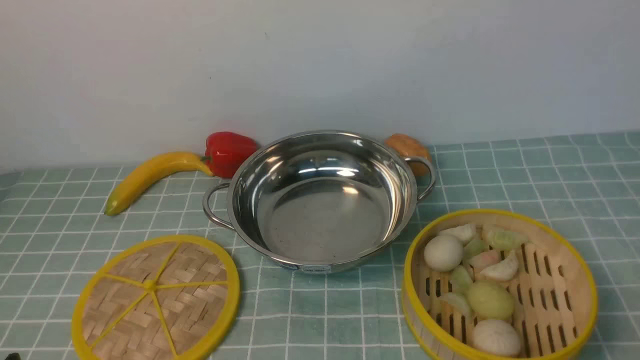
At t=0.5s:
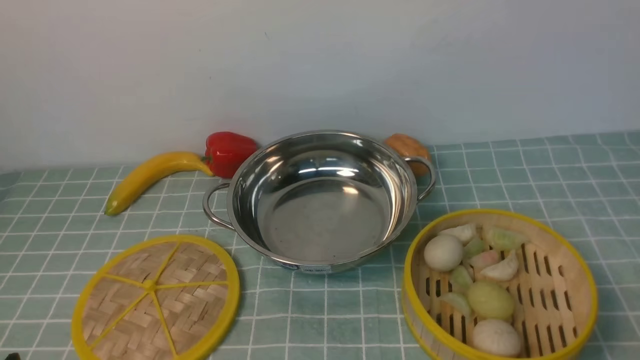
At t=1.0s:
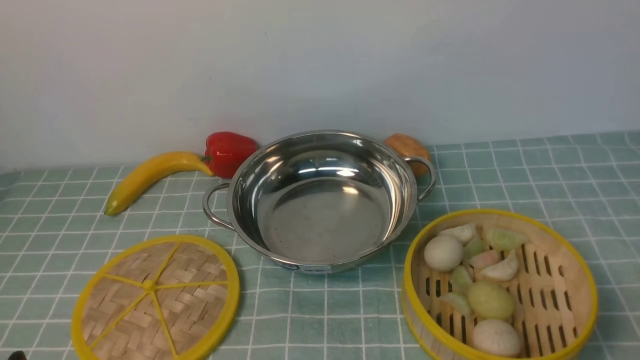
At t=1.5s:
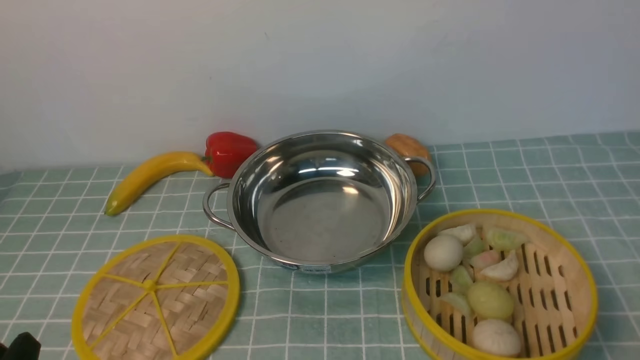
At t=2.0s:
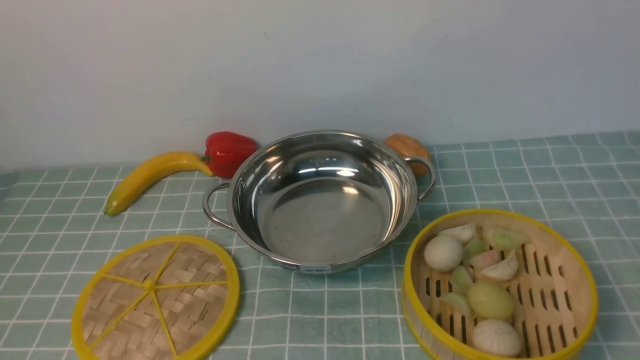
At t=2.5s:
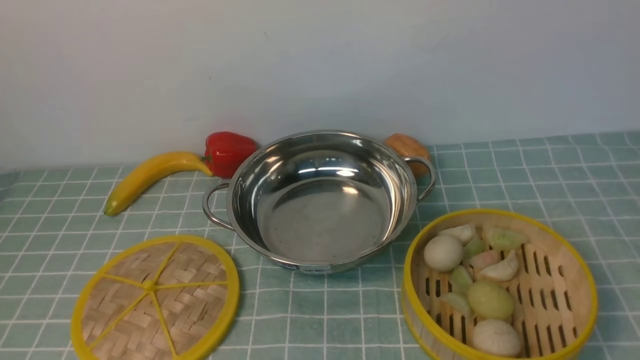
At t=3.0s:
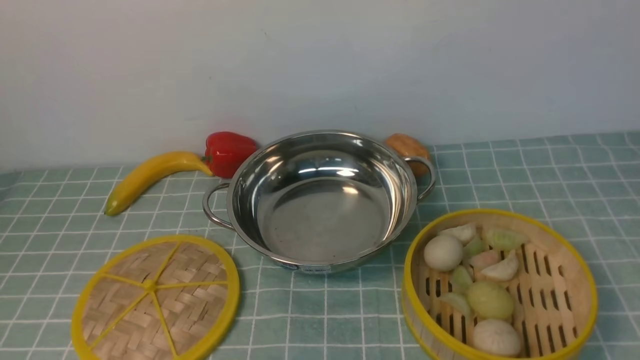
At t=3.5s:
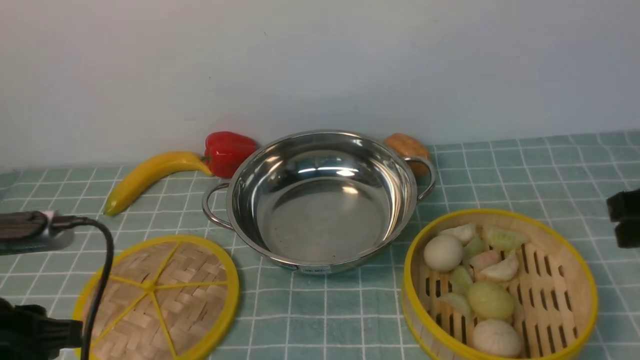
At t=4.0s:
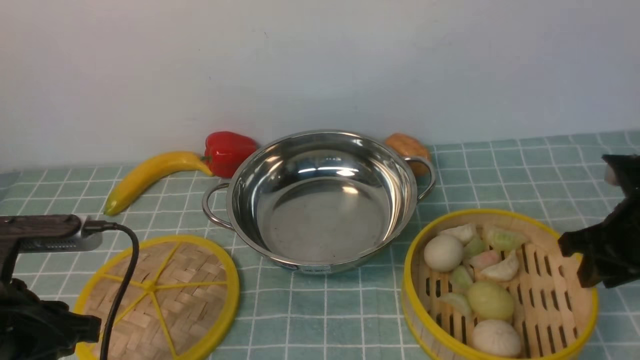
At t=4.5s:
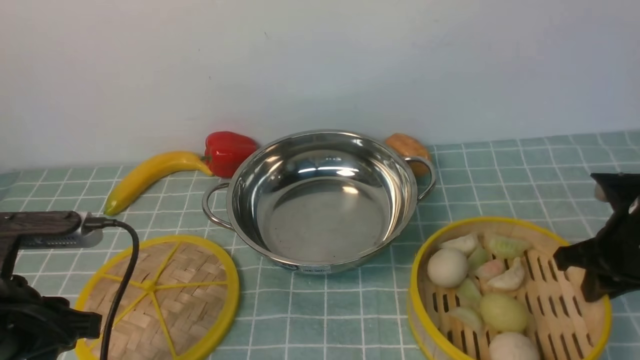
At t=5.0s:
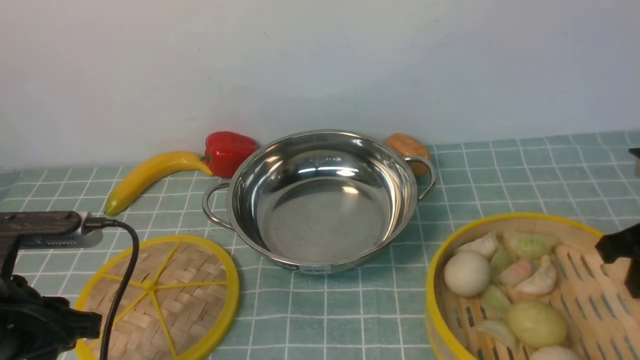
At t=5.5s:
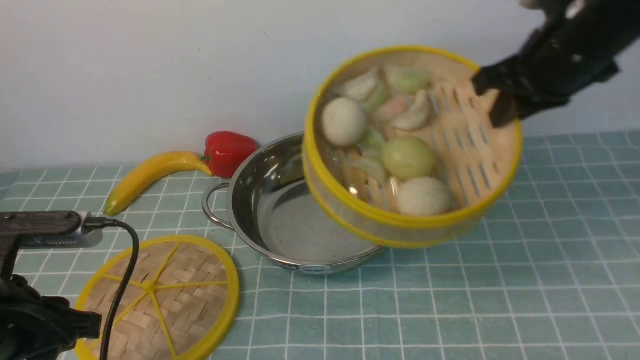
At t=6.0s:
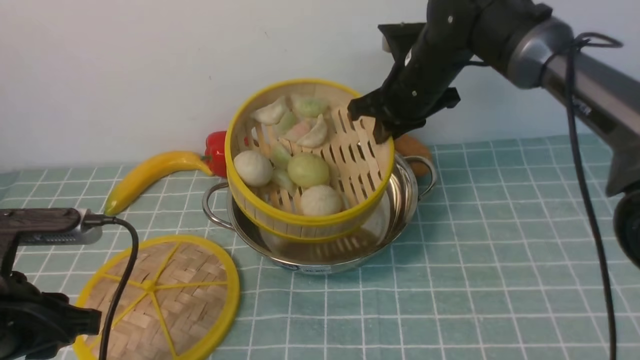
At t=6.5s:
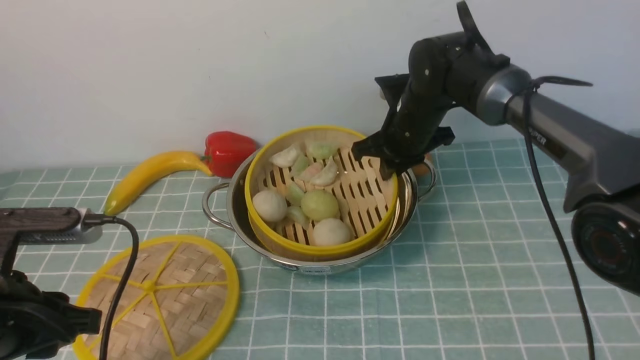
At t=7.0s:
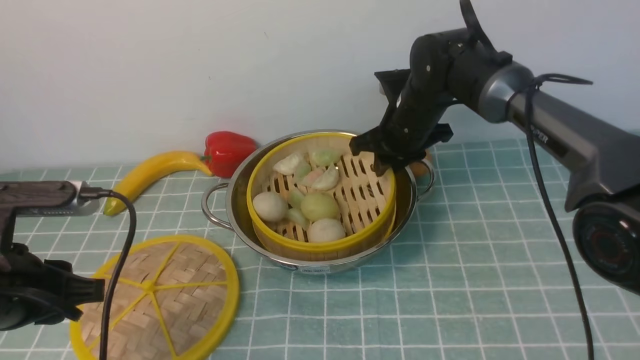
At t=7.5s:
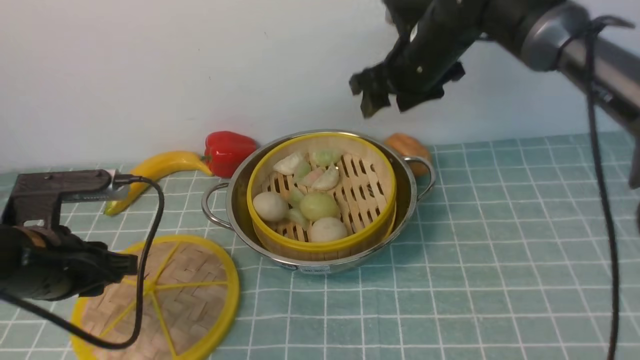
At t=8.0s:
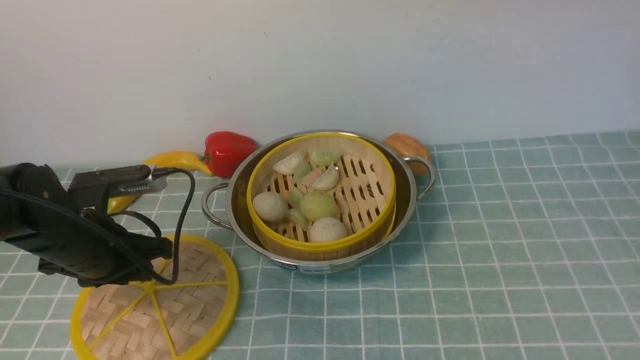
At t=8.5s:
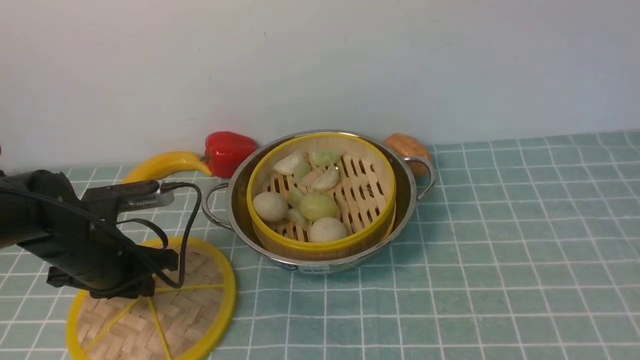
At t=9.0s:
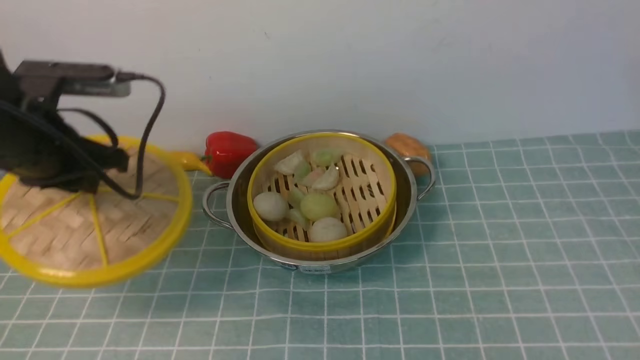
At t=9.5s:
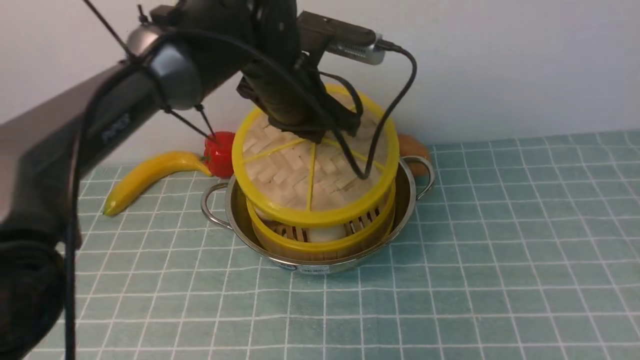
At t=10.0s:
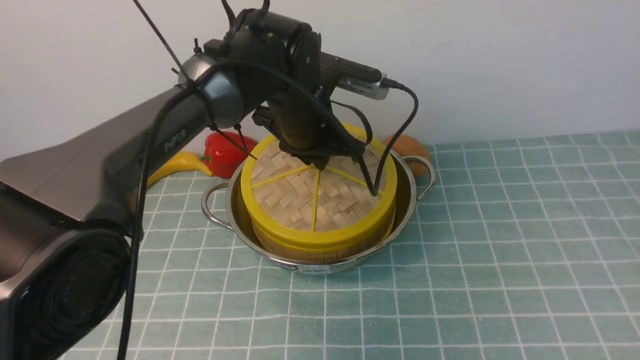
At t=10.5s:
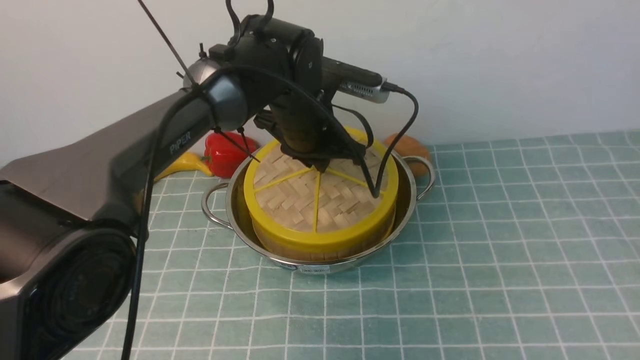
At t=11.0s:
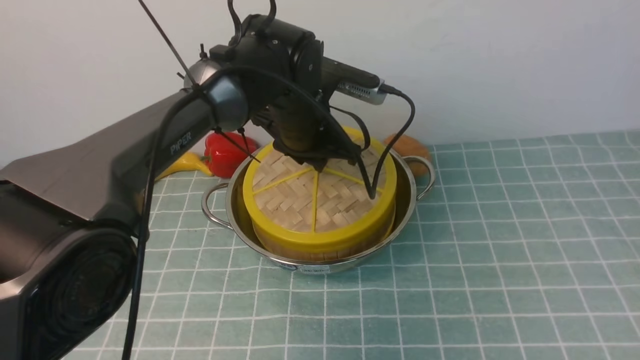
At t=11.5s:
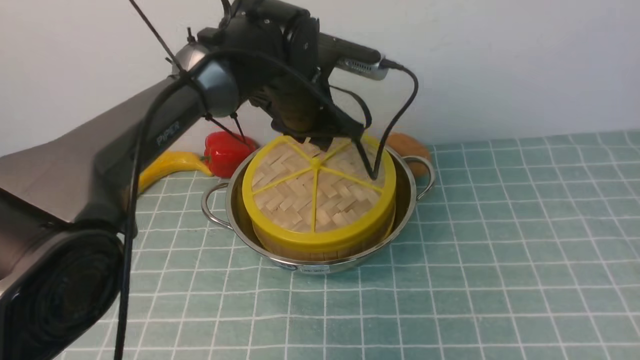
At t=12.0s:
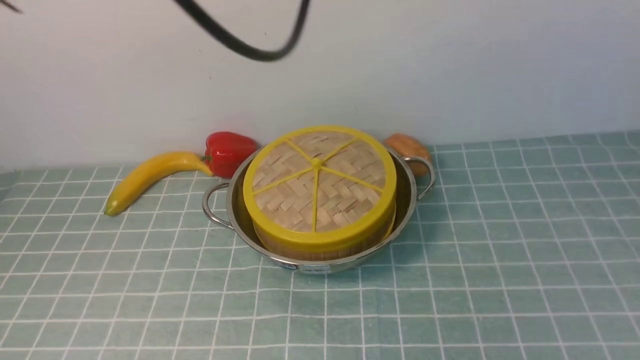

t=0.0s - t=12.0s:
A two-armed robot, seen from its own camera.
Task of the whole recording: place the steamer in the pot on the blue tablecloth, and put the lid on the steamer.
Step, t=0.0s - t=4.5s: use the right arm to lift the steamer closest to it.
Step, t=5.0s - t=7.5s: use the right arm to put the steamer into the iron steamer pot in the middle.
Step, t=8.0s - t=9.0s: use the left arm to lift the lid of the steamer.
Step, t=9.5s - t=11.5s: use the left arm to place the steamer lid on the steamer.
t=2.0s - t=4.0s: The right gripper shifts some 25 cm forward. Meanwhile the left gripper travels forward by some 10 cm.
t=4.0s - t=6.0s: The right gripper goes some 25 cm to the left and forward.
t=6.0s - t=8.0s: The left gripper heads forward and downward, covering approximately 15 cm, while the right gripper is displaced upward and backward by roughly 35 cm, and opens its fingers.
t=8.0s - t=10.0s: The right gripper shifts roughly 25 cm backward and to the right. The left gripper is displaced to the right and forward by approximately 25 cm, and closes its fingers.
t=10.0s - t=12.0s: The right gripper moves roughly 5 cm. Meanwhile the left gripper moves upward and backward, some 30 cm, and opens and closes again.

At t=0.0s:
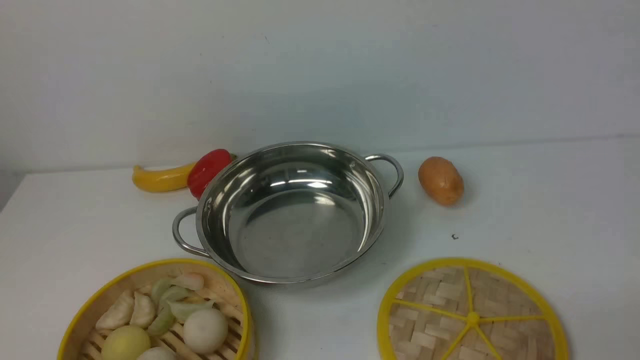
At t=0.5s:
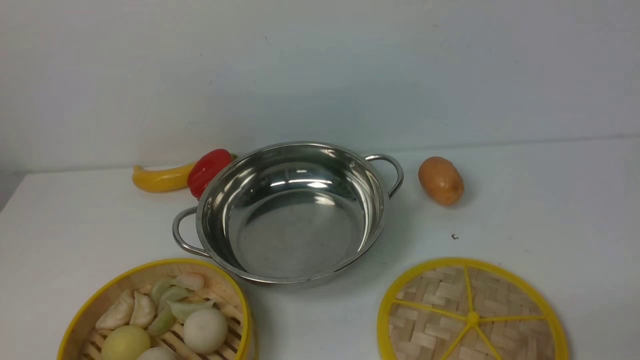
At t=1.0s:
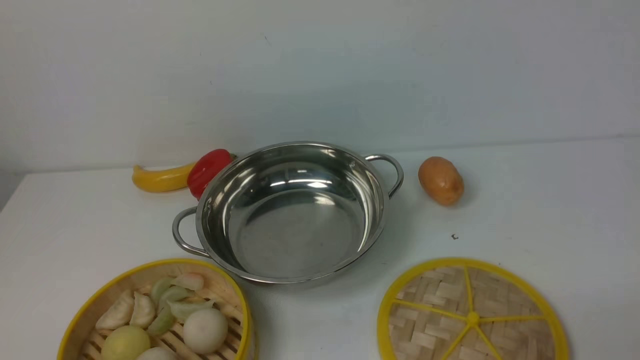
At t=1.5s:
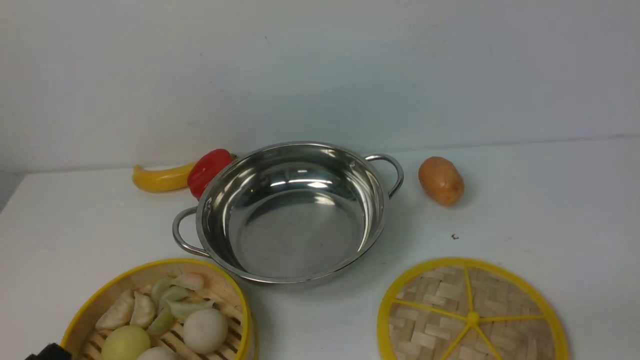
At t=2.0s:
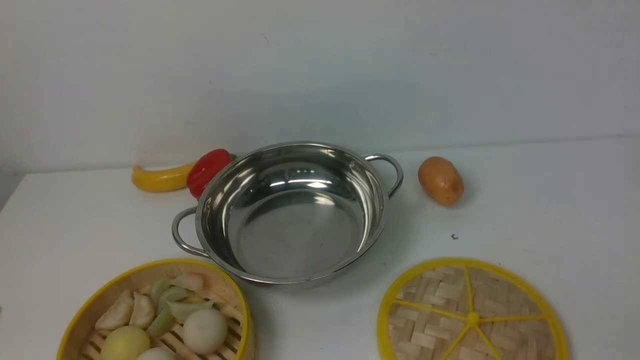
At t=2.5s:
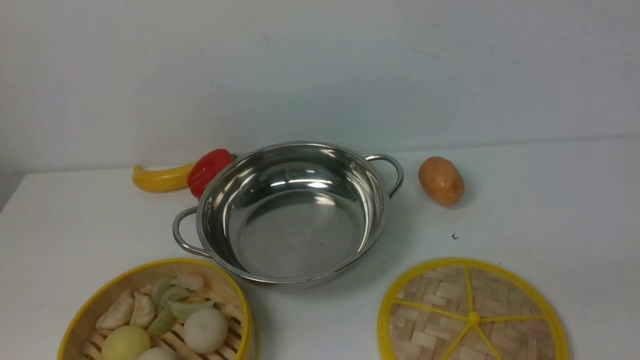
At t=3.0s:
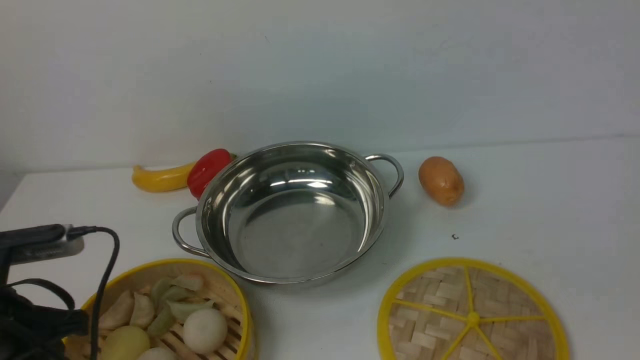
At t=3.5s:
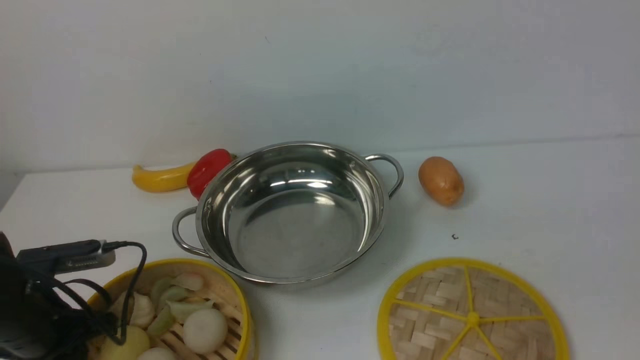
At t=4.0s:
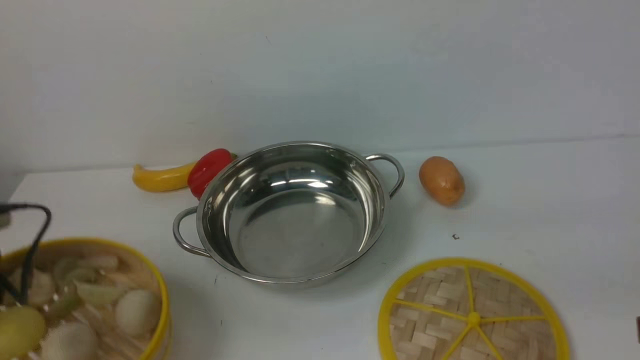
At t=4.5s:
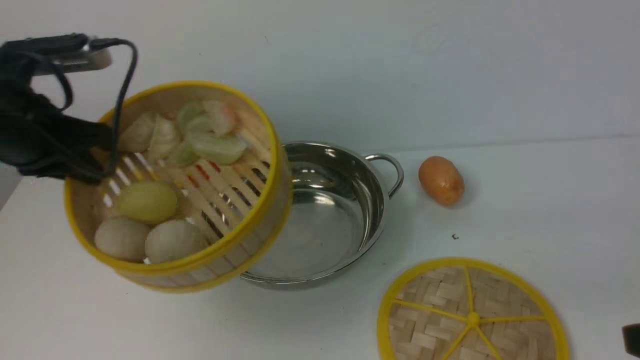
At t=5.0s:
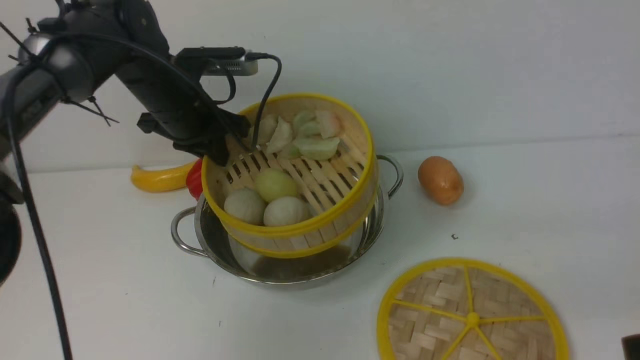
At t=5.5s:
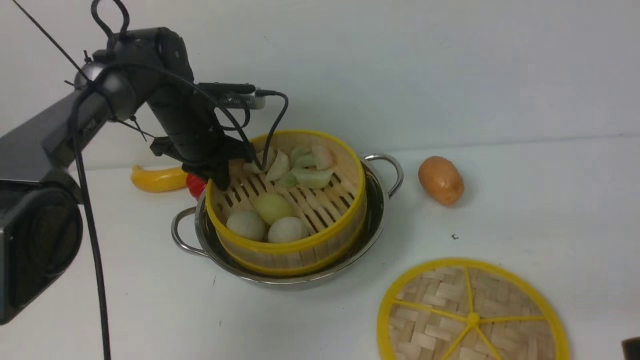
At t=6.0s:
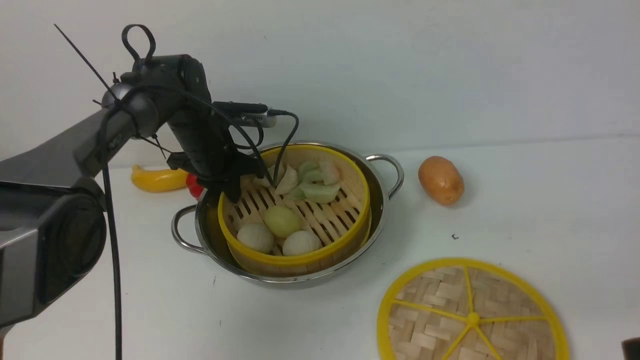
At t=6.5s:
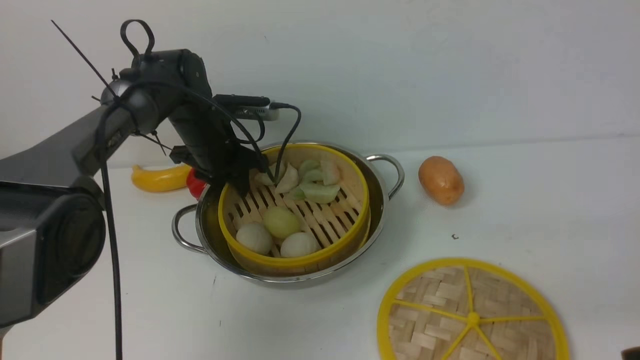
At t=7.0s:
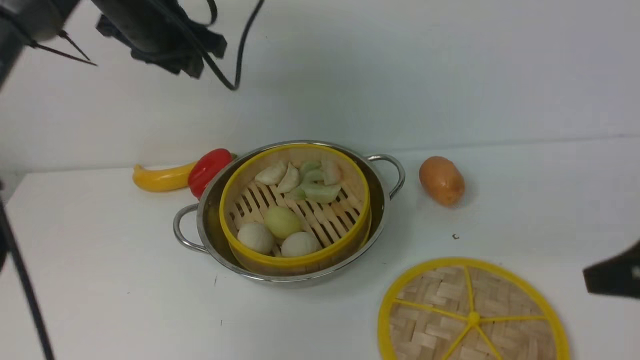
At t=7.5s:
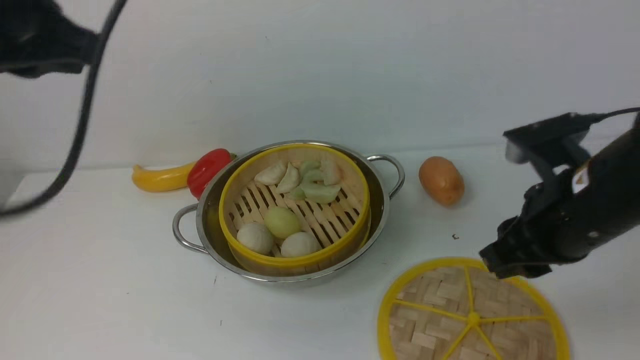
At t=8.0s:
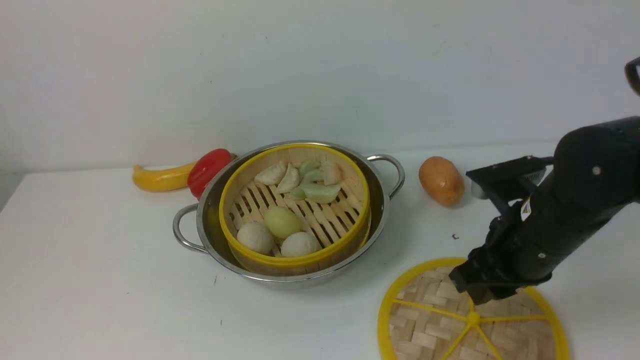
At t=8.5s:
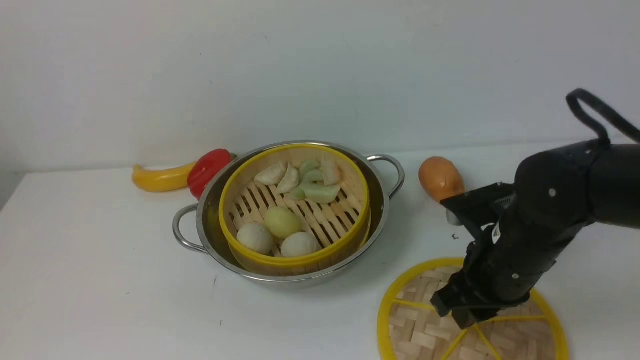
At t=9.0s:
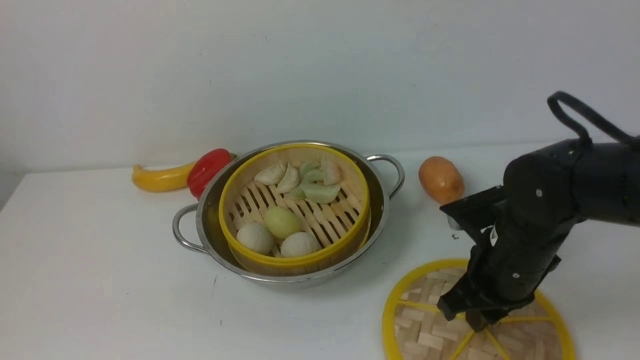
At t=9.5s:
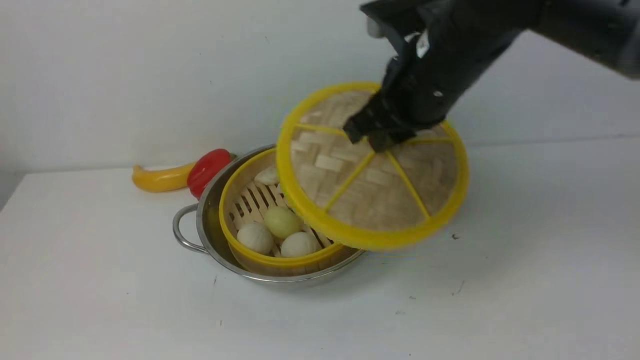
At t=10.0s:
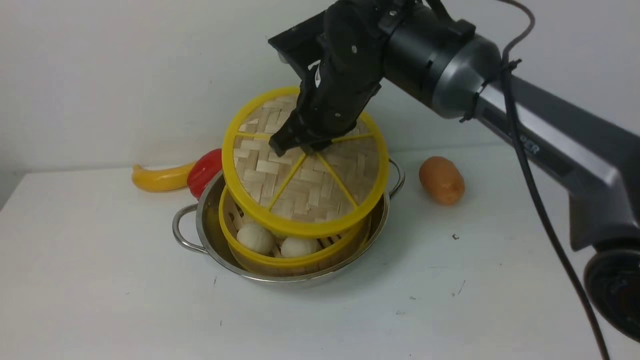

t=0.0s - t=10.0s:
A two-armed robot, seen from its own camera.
Task of the whole recording: place the steamer in the pot on the white table, and put the lid on the steamer.
Step, t=0.0s - t=4.0s: use the left arm to lift the steamer closest to it.
Step, t=4.5s - t=7.0s: use the left arm to put the steamer into the iron steamer pot in the middle.
Step, t=7.5s - t=9.5s: use the right arm to lift the lid of the steamer.
t=2.0s - t=4.0s: The right gripper travels upward by approximately 5 cm, while the left gripper travels forward and to the left by some 20 cm, and closes.
t=4.0s - t=6.0s: The left gripper moves forward and to the right, roughly 30 cm.
t=6.0s - t=8.0s: The right gripper travels forward, to the left and downward by some 20 cm. The left gripper moves backward and upward, some 50 cm, and opens and closes again.
t=8.0s - t=10.0s: The left gripper shifts by approximately 5 cm, while the right gripper shifts roughly 20 cm to the left, forward and upward.
